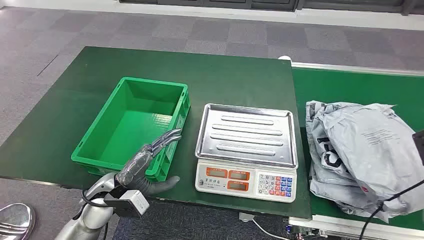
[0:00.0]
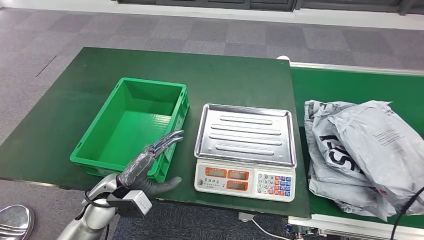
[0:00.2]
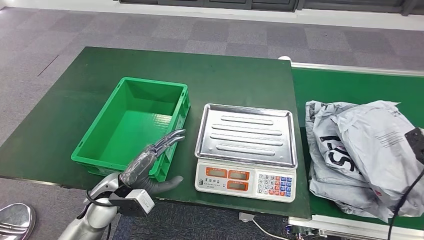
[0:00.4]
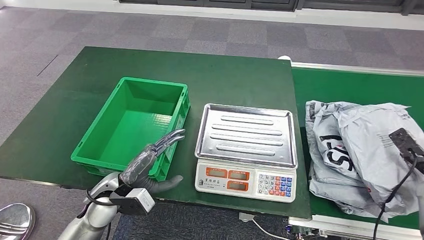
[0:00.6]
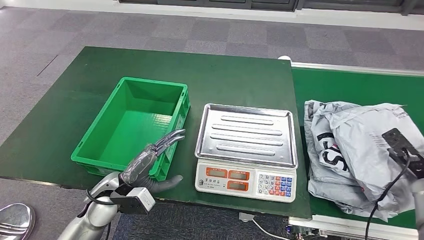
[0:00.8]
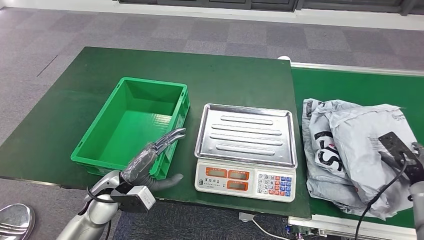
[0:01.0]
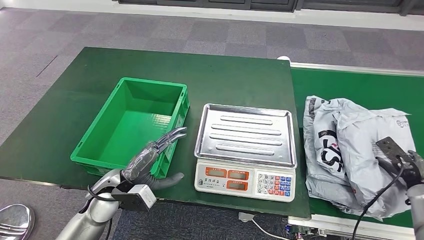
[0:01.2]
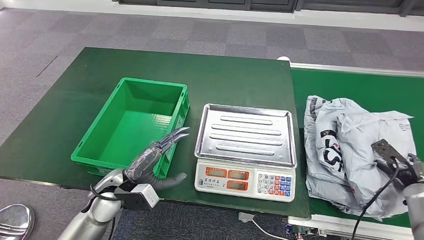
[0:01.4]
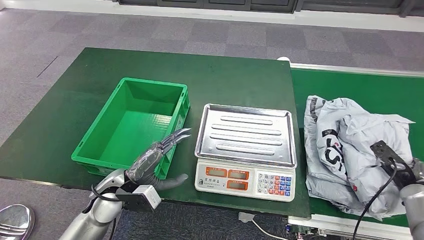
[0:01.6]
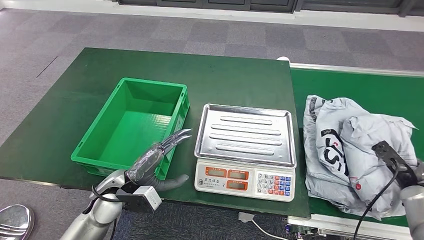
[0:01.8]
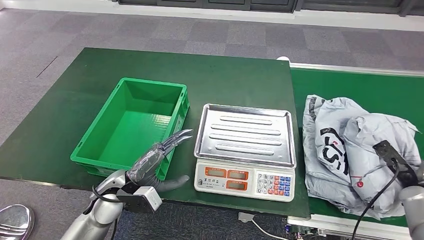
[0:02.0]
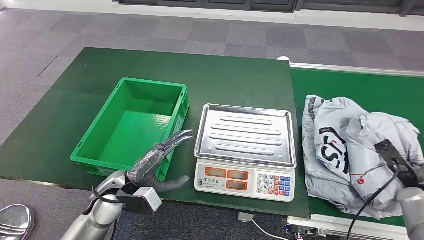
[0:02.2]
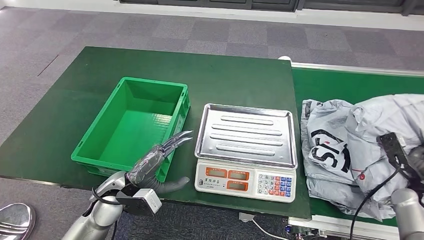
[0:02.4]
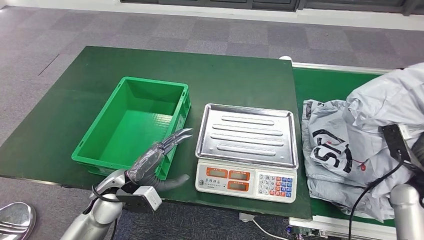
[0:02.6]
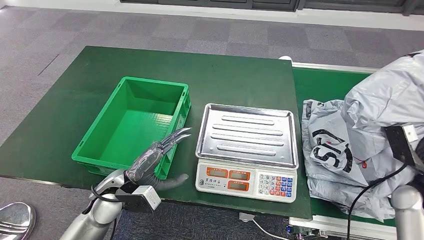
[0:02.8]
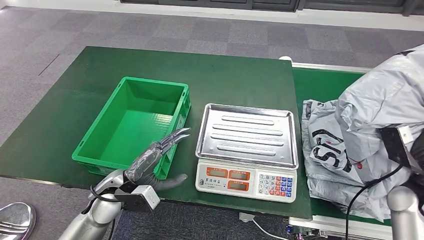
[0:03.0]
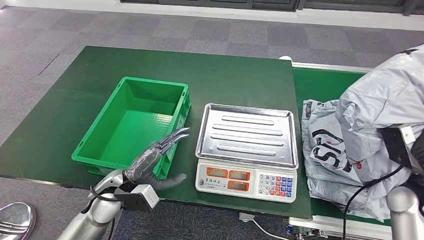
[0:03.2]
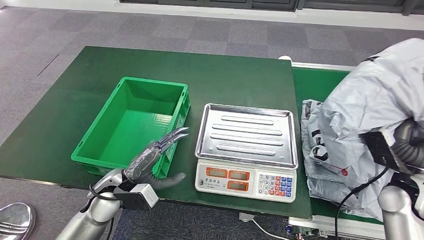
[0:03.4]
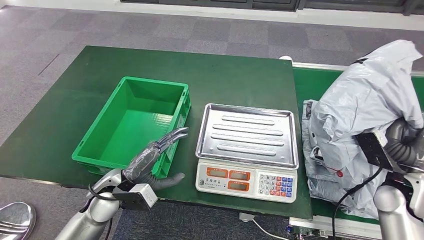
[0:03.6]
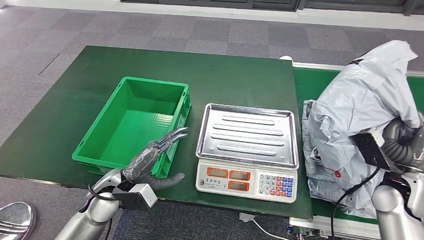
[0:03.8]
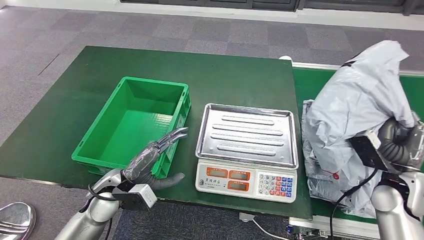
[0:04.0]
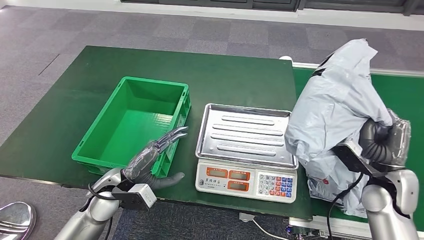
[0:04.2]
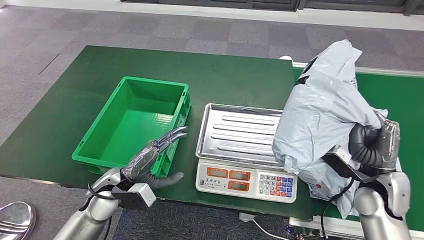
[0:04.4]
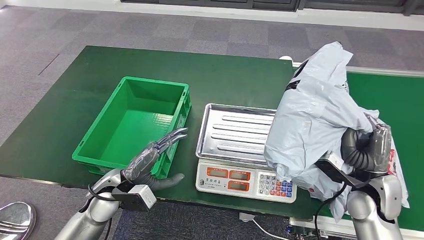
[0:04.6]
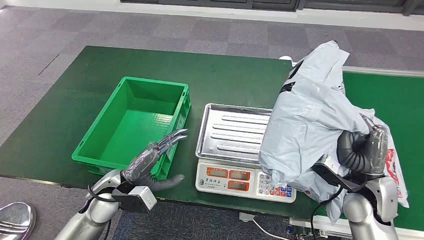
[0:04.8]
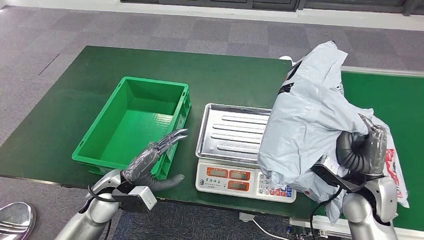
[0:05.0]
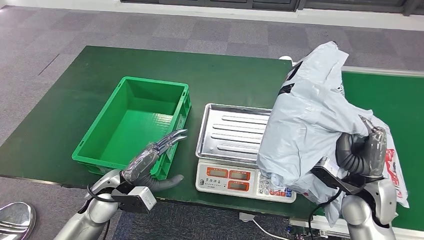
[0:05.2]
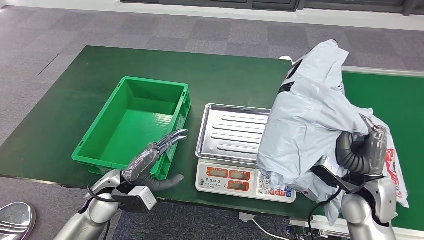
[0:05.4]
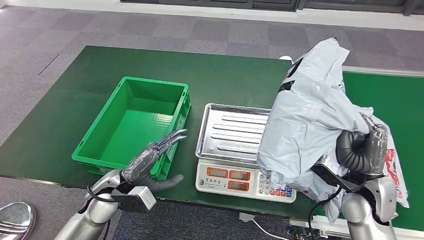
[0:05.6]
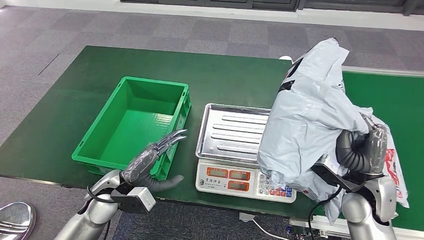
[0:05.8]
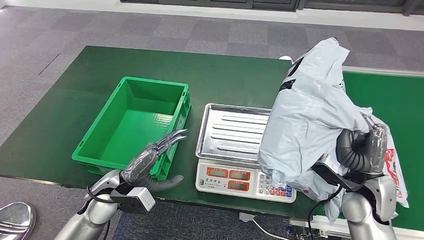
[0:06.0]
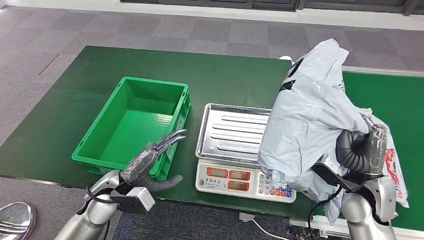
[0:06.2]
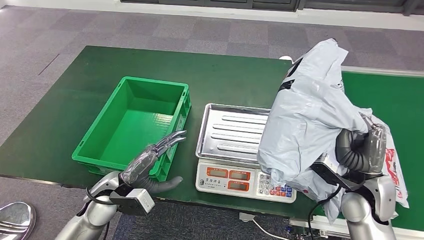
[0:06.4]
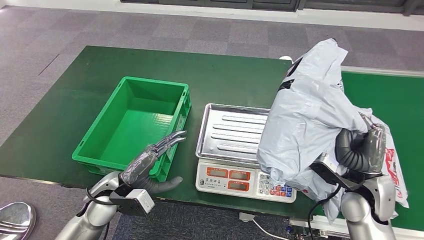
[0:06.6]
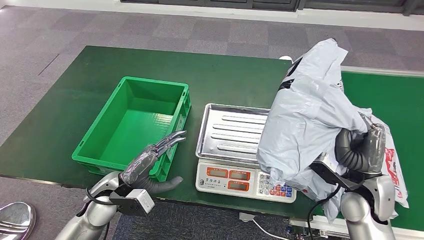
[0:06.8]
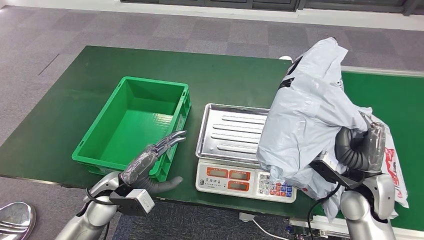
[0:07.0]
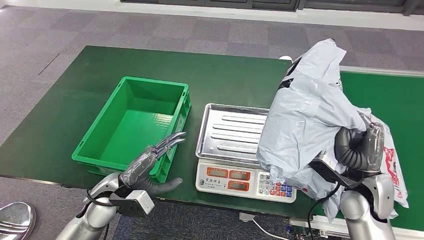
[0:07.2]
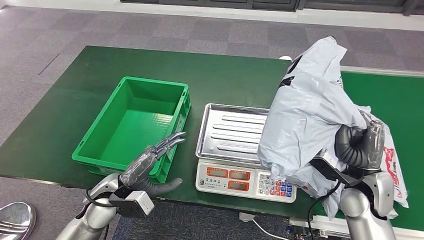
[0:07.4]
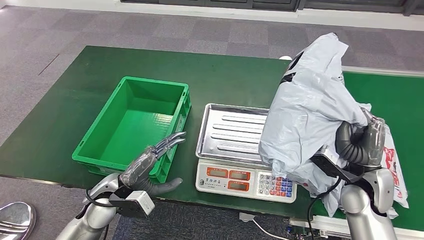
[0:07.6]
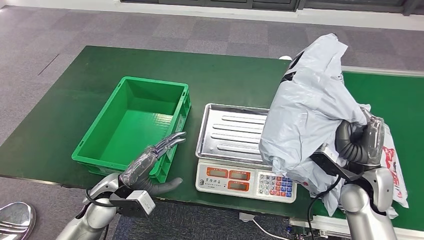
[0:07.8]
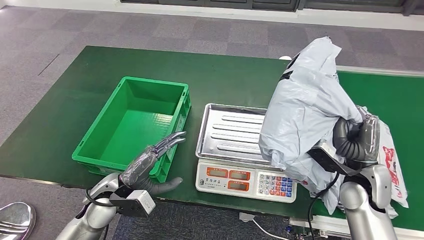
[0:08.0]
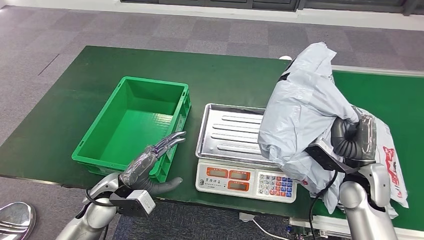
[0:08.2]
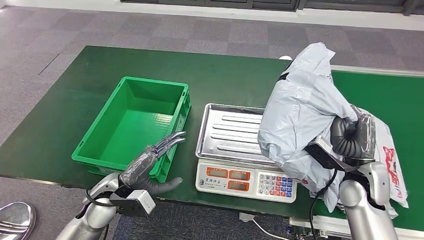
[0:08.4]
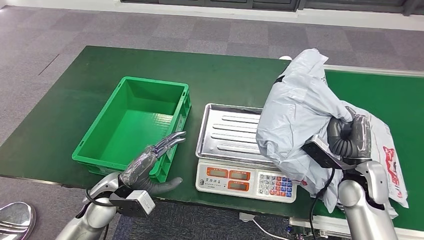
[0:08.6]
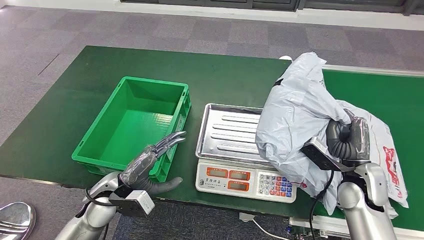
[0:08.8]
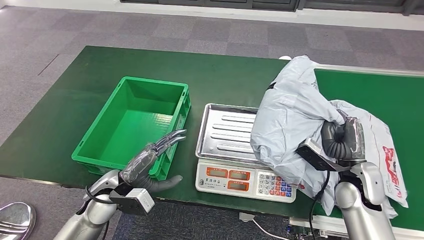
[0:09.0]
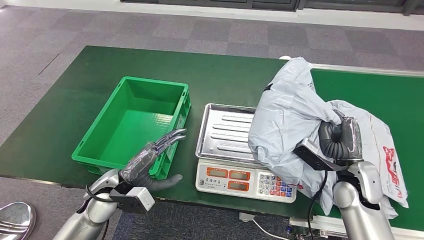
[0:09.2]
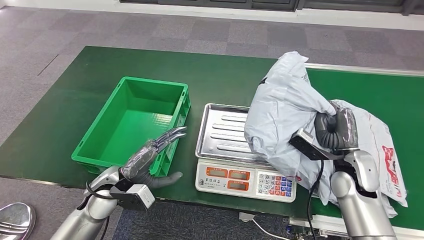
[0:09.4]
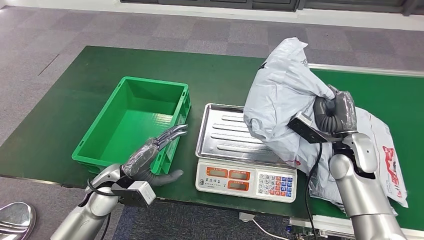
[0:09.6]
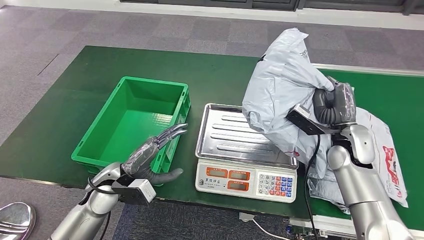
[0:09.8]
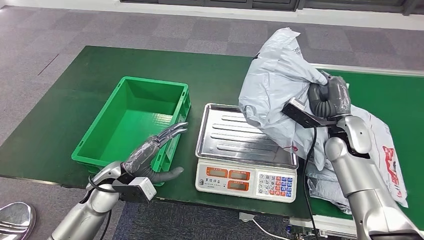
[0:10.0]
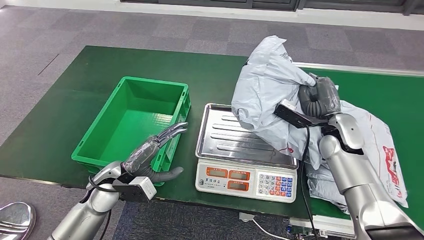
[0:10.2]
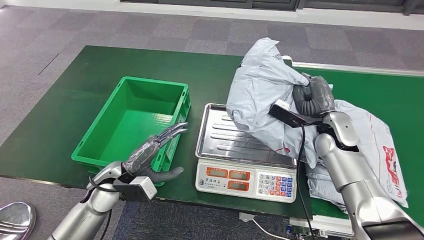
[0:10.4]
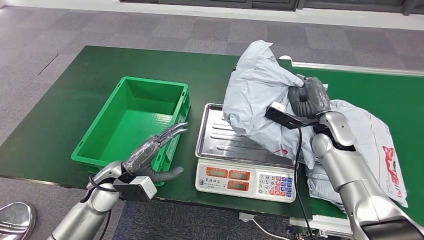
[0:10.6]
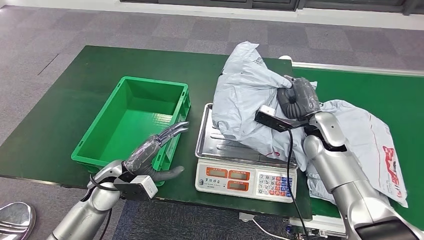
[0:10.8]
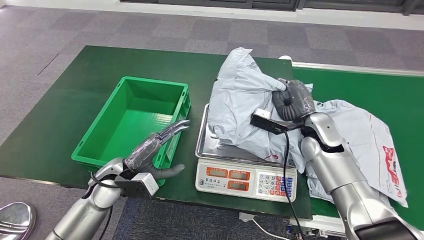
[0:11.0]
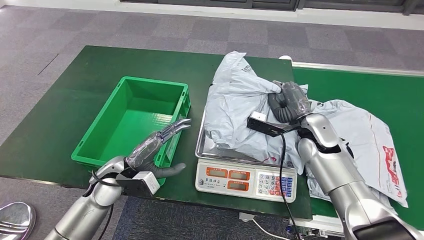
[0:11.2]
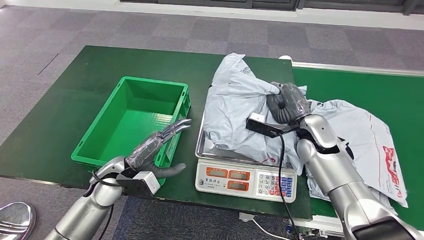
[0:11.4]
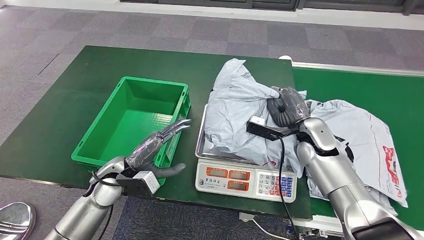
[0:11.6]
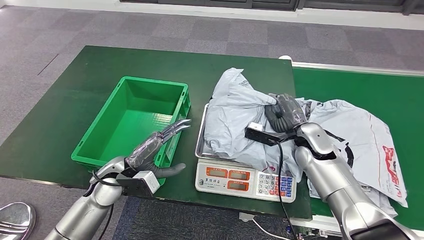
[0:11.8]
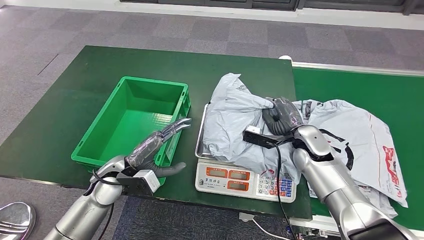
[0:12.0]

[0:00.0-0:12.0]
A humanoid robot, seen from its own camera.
Step, 0:00.0 to 0:03.6: Take the parcel off the conveyor belt.
0:04.4 to 0:09.0: The hands move only a little.

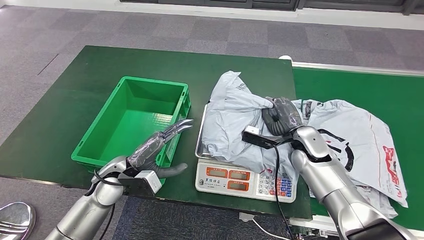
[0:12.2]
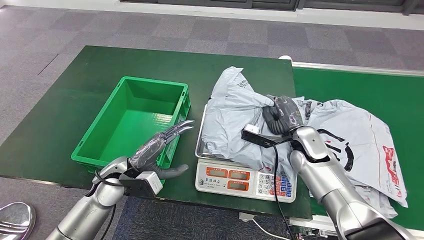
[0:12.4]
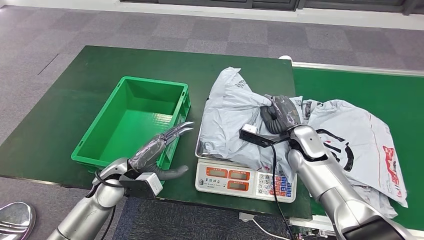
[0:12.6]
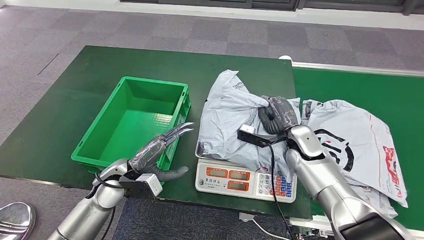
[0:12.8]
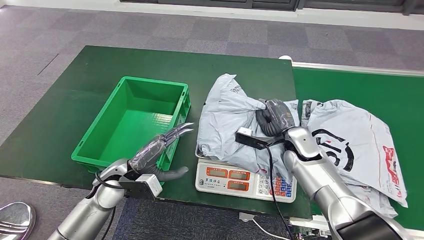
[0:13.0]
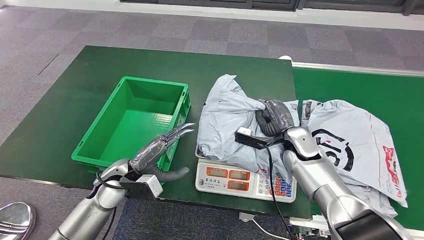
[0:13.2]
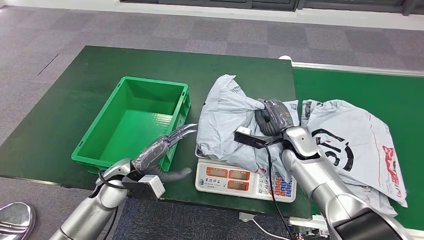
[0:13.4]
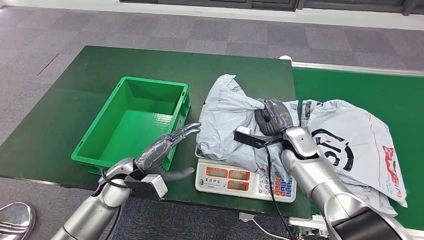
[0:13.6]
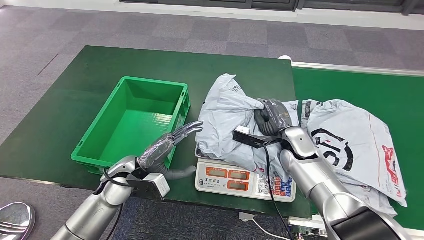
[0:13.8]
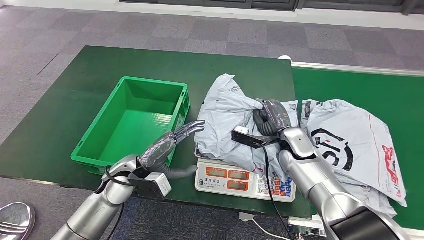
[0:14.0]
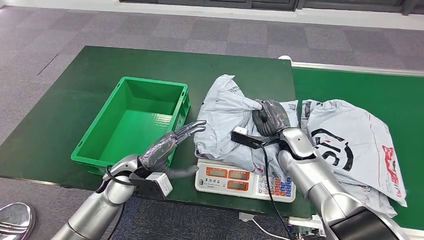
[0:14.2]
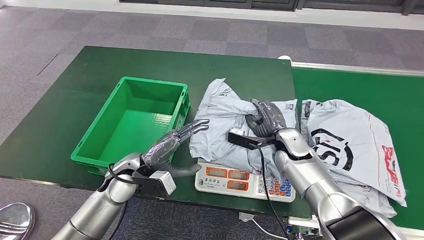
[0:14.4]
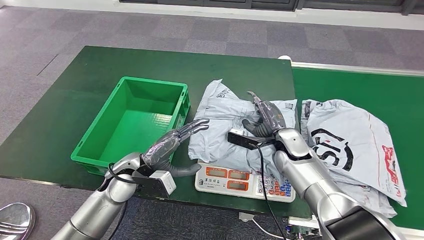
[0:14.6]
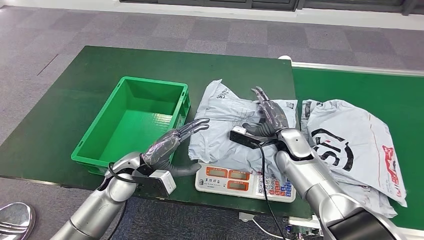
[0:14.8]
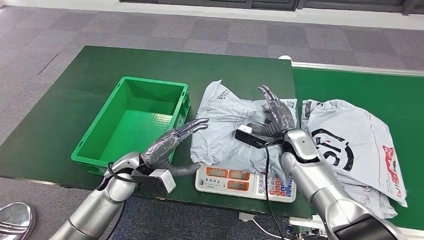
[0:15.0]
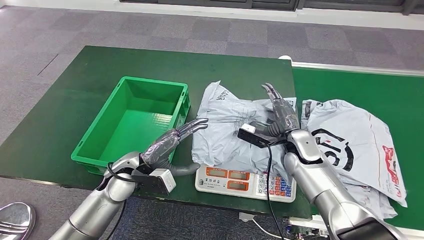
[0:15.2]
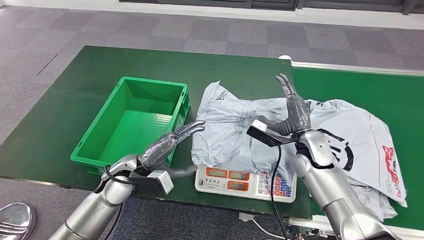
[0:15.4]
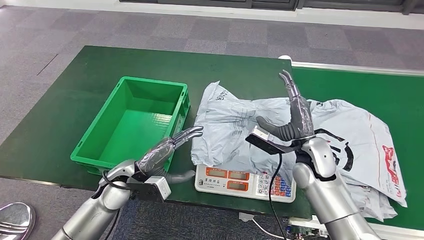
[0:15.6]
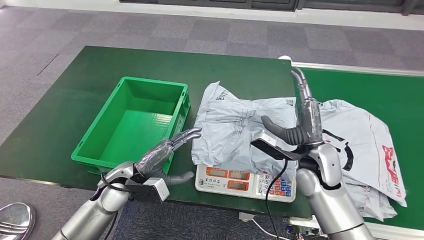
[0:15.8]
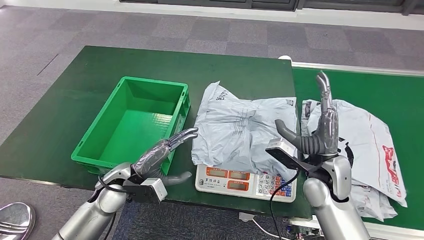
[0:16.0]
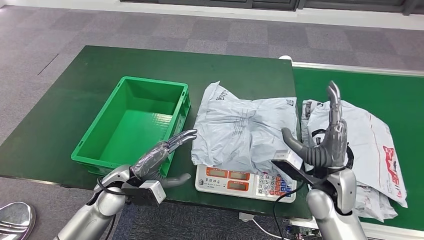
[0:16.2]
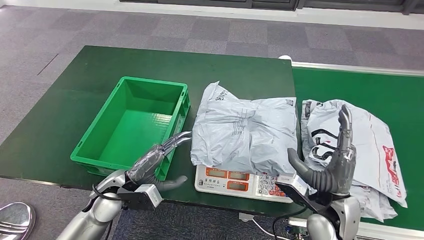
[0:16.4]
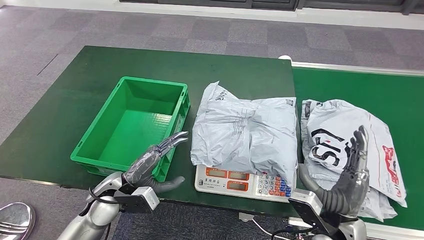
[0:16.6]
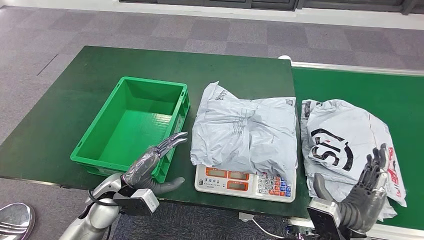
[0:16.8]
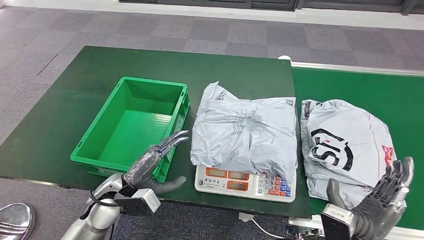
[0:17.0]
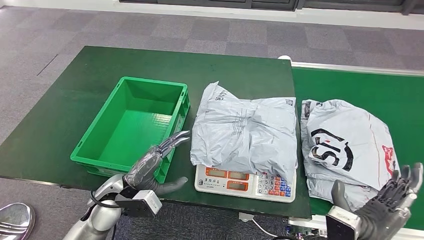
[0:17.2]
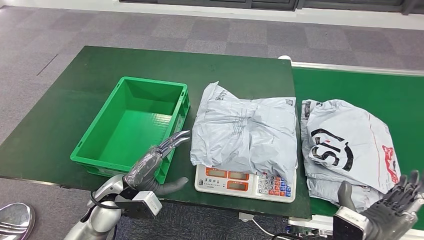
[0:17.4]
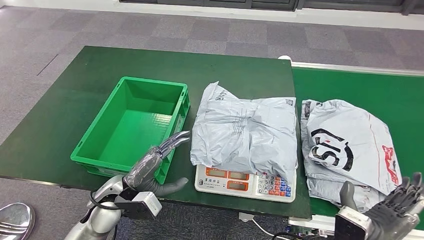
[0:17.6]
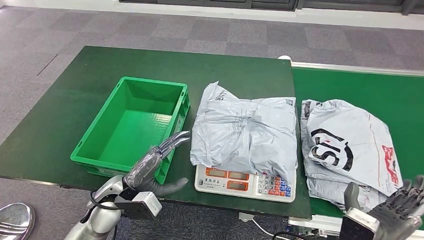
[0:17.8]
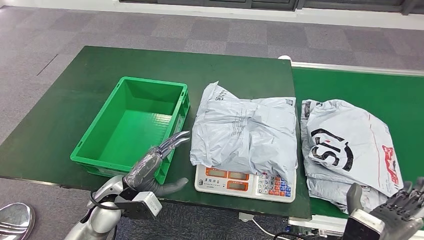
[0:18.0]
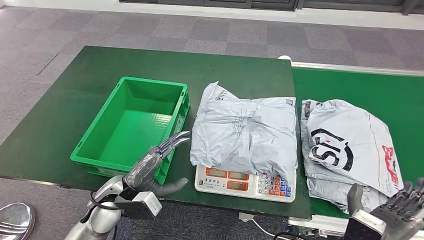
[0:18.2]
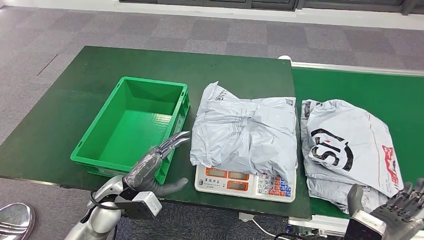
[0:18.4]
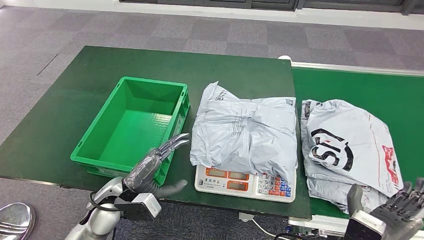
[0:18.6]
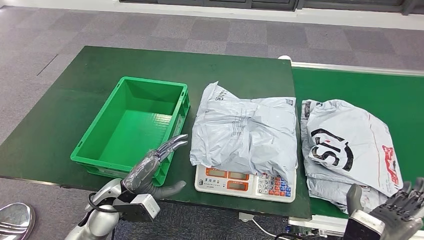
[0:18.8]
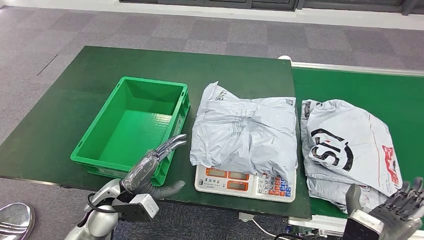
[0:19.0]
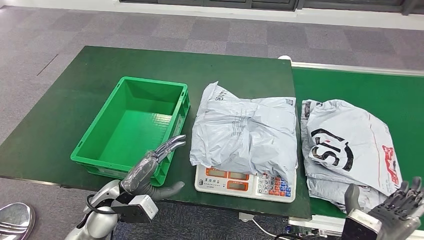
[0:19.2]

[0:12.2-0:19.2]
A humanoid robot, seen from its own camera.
Step, 0:12.2 to 0:16.2: Place the parcel onto the inbound machine.
0:12.2 to 0:15.0: There are only small adjustments of the hands.
0:15.0 to 0:16.4: The left hand moves roughly 5 cm. Meanwhile the right hand travels backward by about 15 cm.
0:16.4 to 0:17.8: The right hand moves backward, approximately 10 cm.
0:17.8 to 0:19.2: The hands make only small movements.
